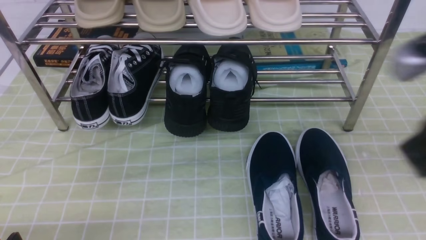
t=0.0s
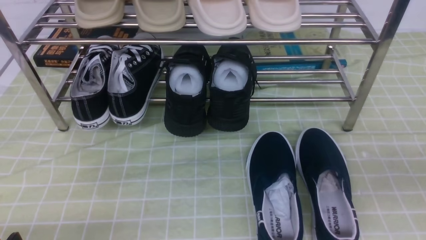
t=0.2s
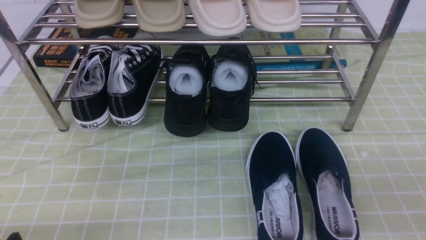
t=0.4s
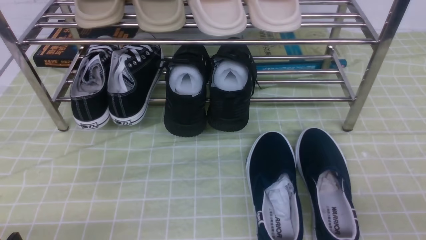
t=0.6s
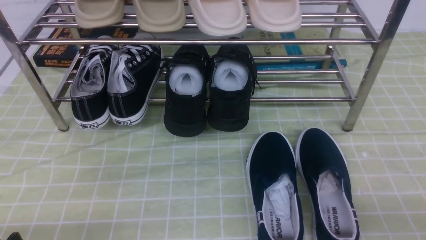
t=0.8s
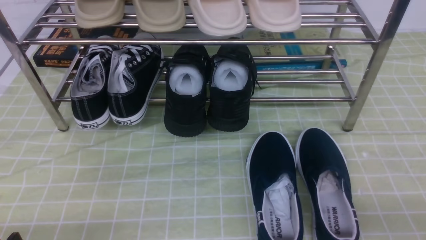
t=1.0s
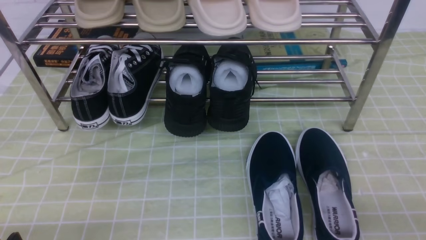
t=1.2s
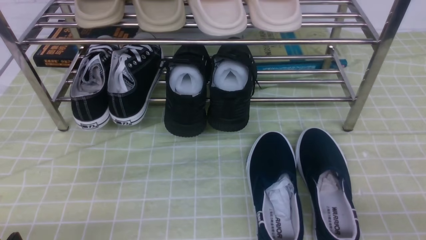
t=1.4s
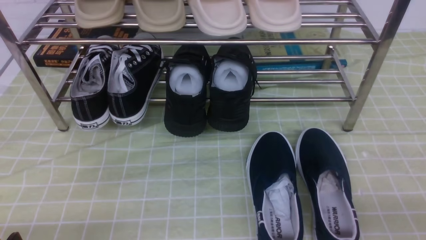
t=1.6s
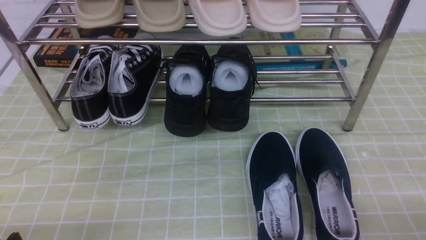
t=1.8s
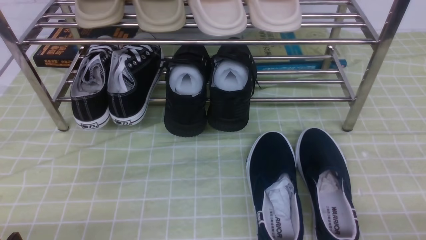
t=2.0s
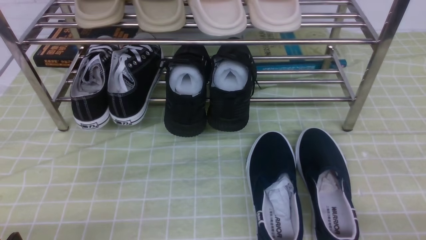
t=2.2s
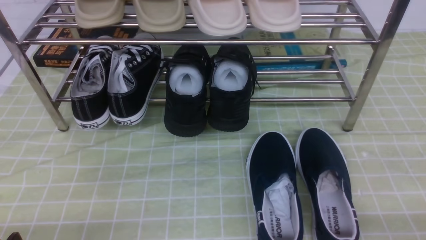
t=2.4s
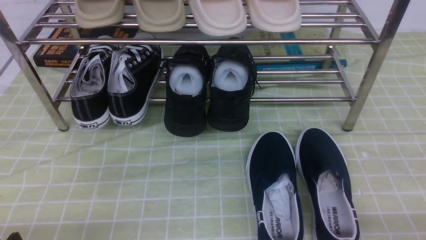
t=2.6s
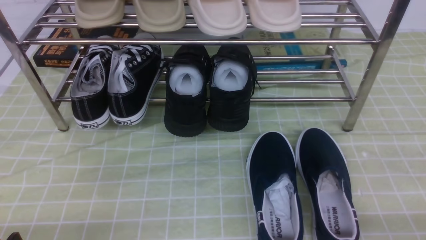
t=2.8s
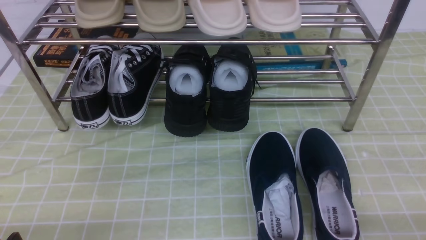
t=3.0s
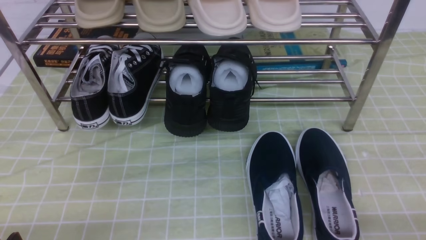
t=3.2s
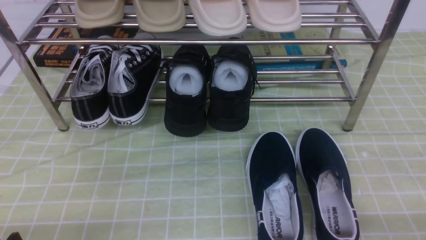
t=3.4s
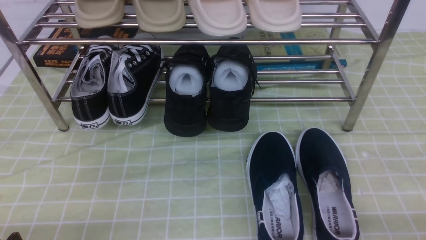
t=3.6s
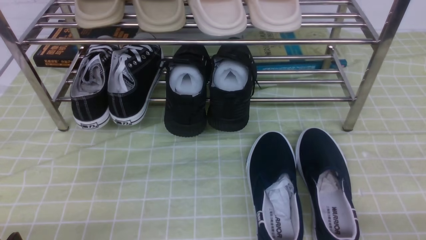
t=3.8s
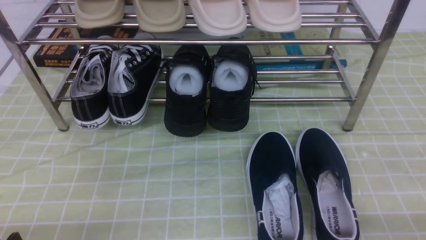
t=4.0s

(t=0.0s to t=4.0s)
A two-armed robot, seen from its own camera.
t=0.0s - t=1.4s: The right gripper moves downward, backward and to the right, about 20 cm.
t=2.6s - t=4.0s: Both grippers stay put.

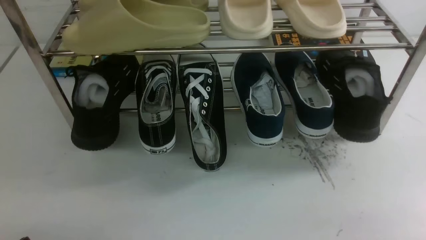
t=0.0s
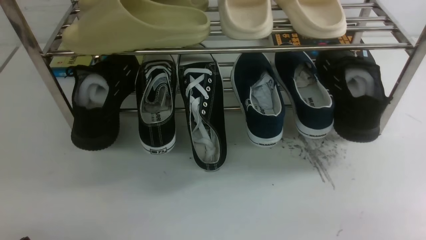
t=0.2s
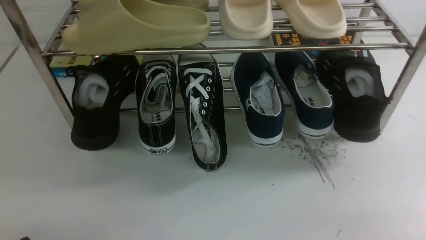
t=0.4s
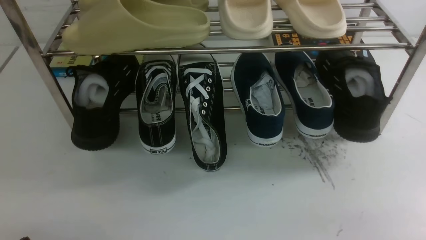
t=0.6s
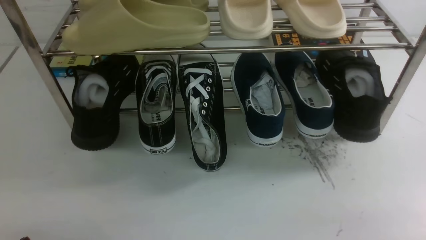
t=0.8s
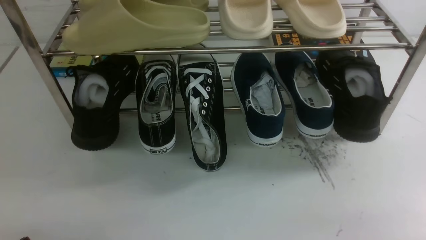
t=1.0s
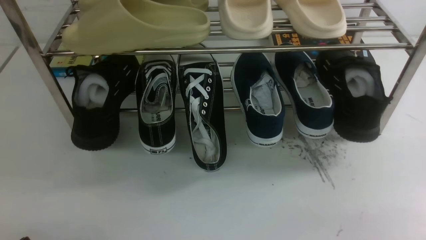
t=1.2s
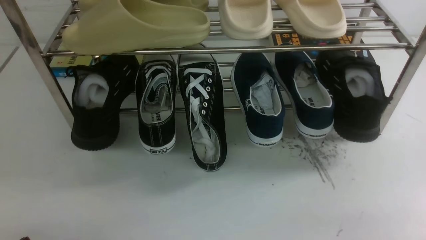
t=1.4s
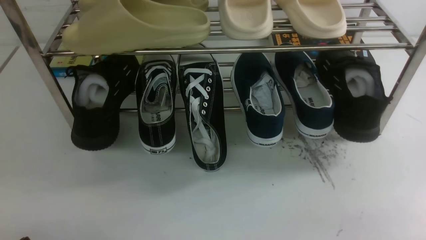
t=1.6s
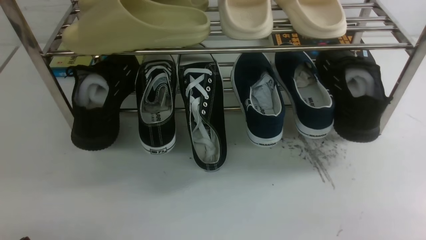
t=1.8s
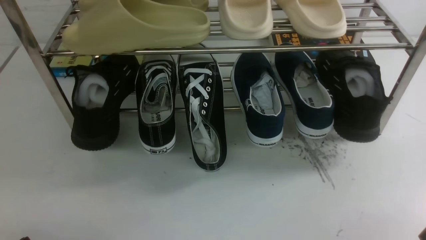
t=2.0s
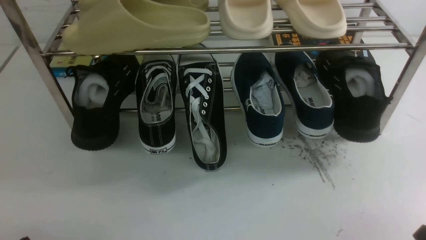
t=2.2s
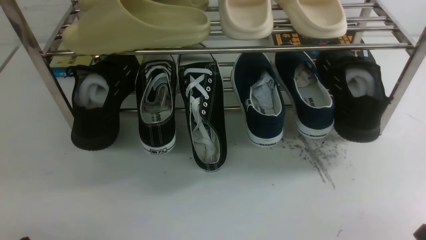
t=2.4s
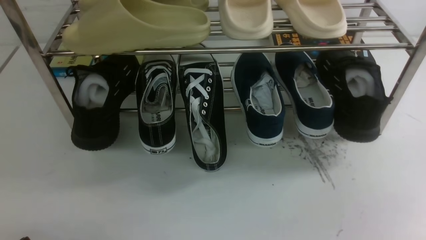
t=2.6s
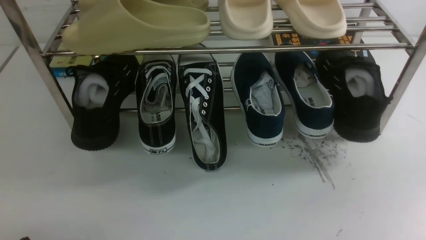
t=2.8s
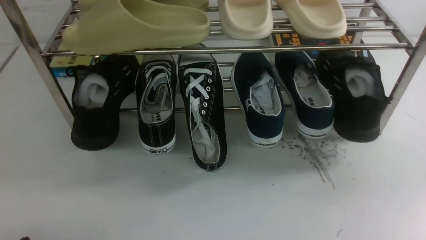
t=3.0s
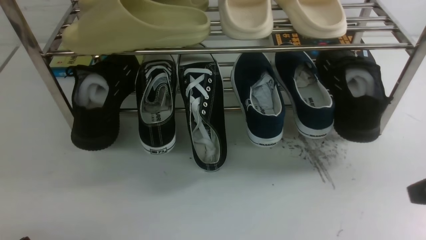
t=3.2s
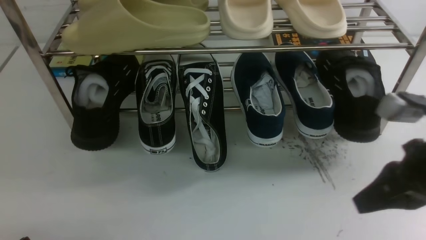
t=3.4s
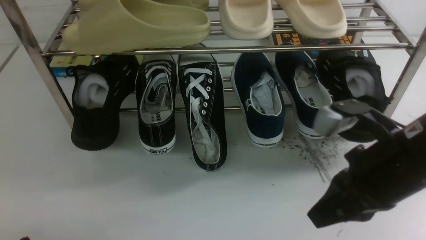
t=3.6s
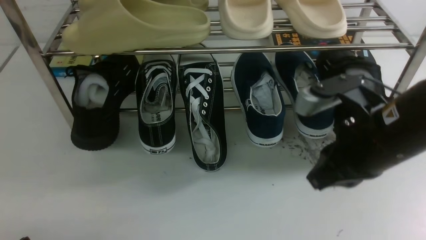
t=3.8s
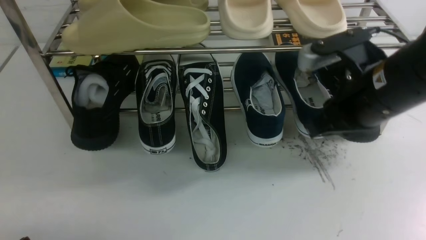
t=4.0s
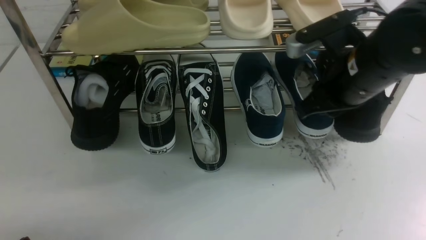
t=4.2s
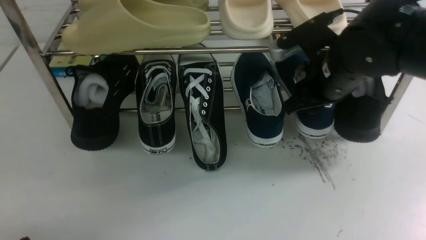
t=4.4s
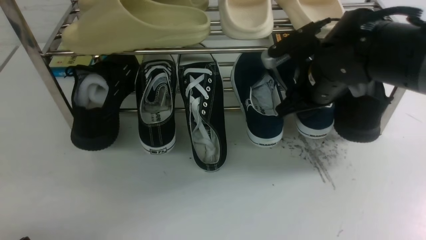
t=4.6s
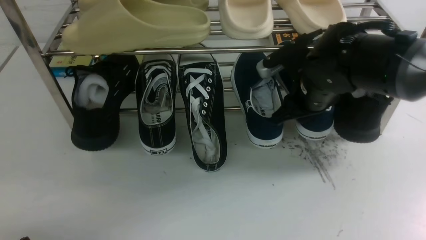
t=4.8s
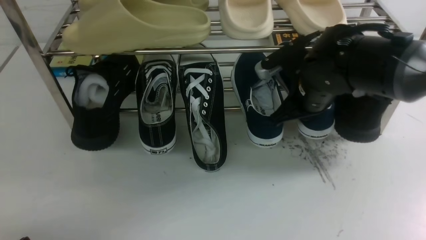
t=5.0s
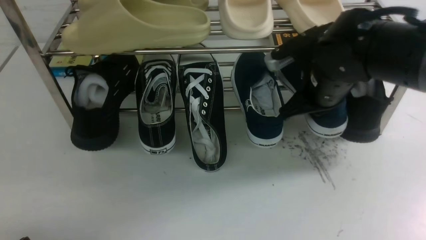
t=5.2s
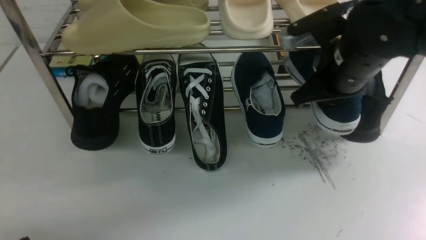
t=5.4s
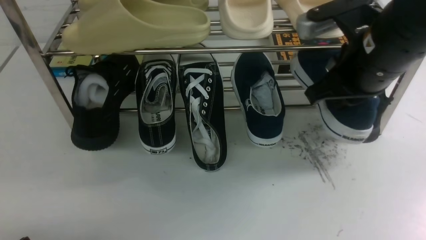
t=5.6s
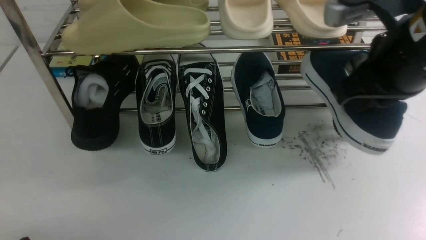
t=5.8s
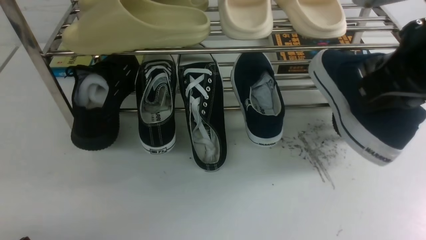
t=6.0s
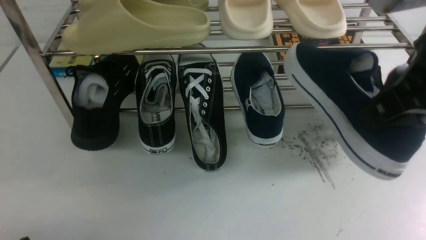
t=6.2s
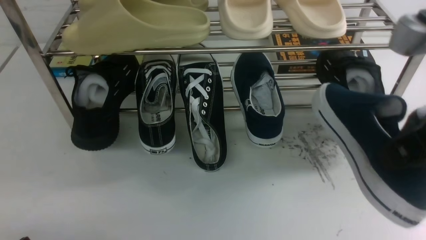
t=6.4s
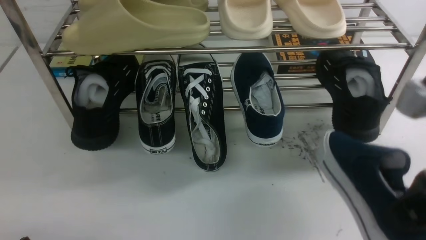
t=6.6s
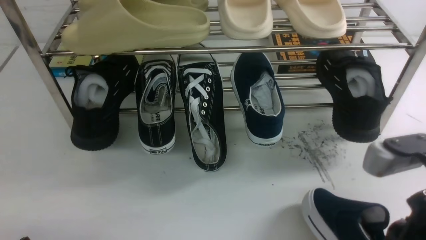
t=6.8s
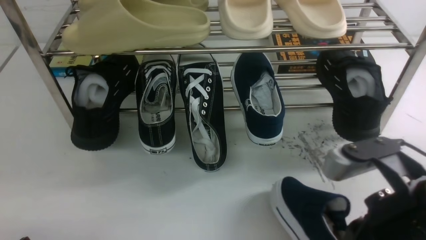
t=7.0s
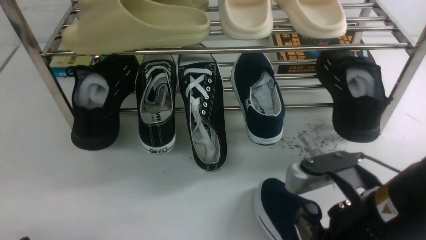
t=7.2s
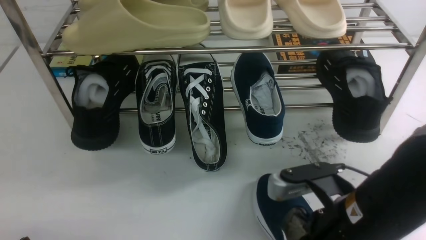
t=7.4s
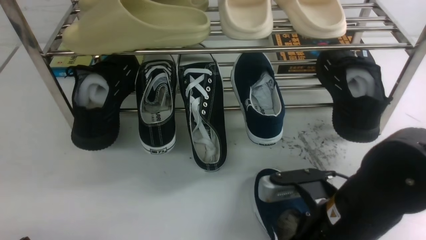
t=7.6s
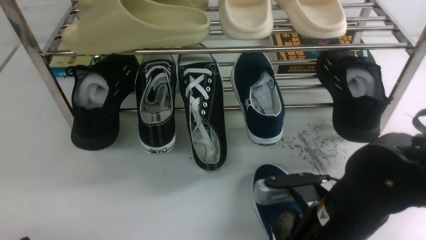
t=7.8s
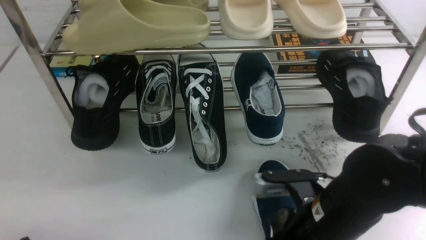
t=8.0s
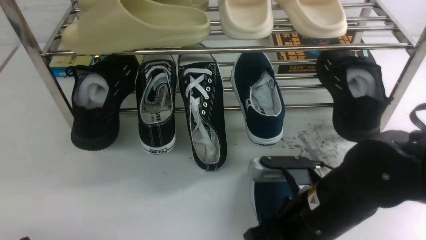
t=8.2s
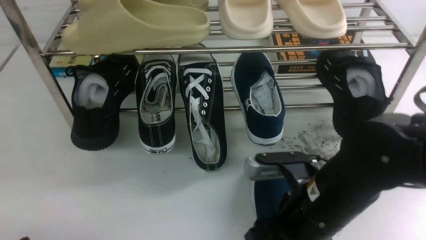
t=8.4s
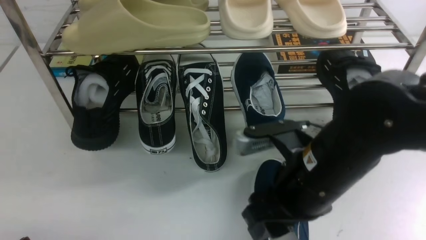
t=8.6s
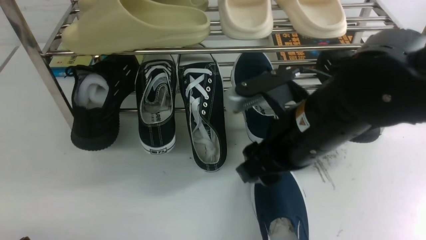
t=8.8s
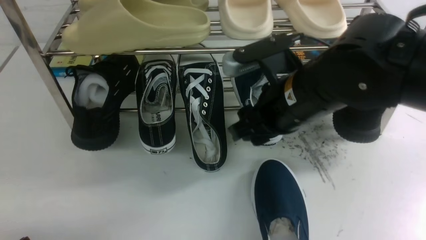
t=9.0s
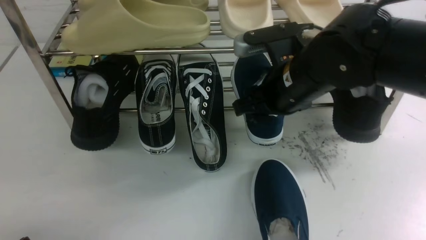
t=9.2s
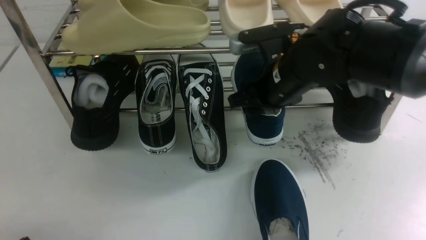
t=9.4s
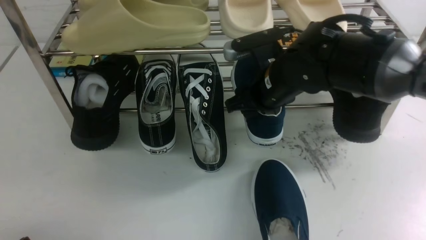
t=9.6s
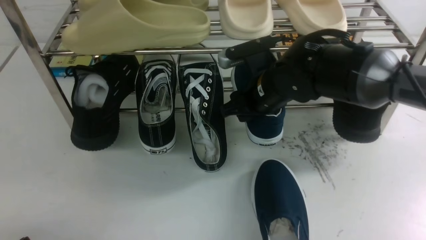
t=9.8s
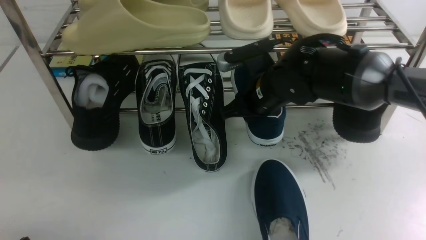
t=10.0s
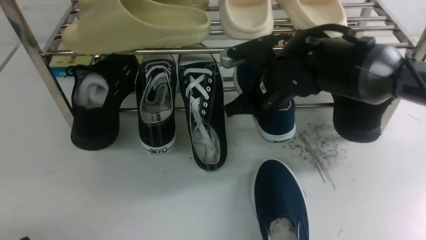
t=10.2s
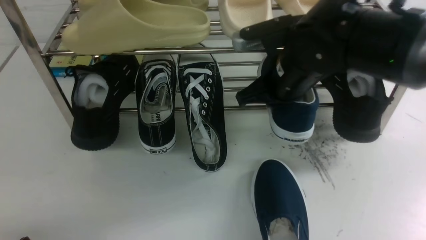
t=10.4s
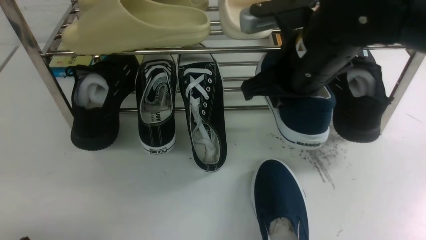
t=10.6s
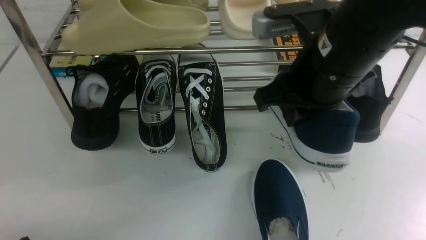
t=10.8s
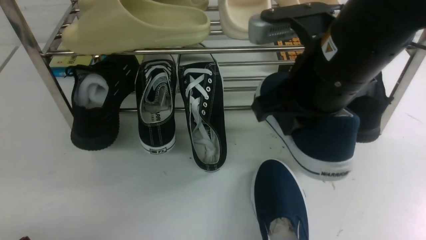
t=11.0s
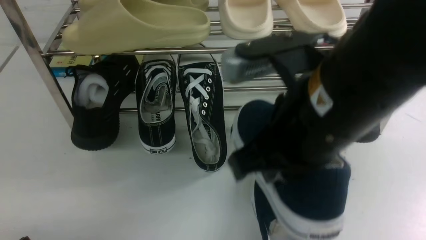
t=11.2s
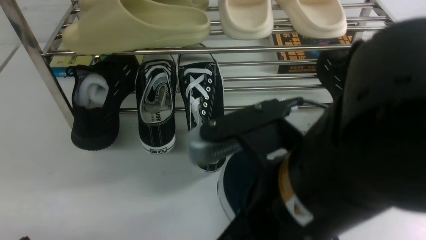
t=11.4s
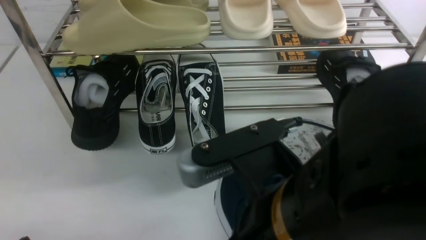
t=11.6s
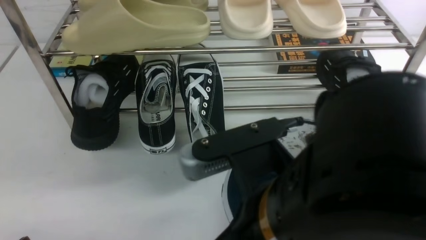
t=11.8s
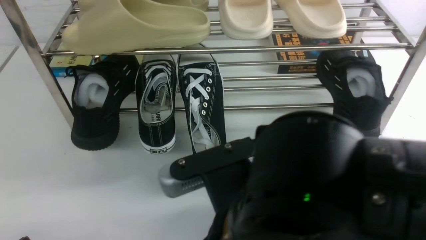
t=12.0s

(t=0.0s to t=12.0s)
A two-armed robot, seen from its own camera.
Step, t=0.0s - t=5.6s: use the right arm to clamp a shoe on the right side of the shoe rack.
Step, t=5.8s - t=8.6s: use the right arm to take out the clamped shoe from the shoe rack and put it down.
Step, t=8.8s - t=10.6s: use the right arm to clamp a shoe in the middle of the shoe rack.
t=0.0s - t=1.6s: Both grippers stay put.
t=3.0s - t=4.4s: The right gripper shifts roughly 25 cm forward and to the left, and opens its fingers.
t=4.4s - t=6.0s: The right gripper goes about 15 cm backward and upward, and closes its fingers.
t=6.0s - t=7.6s: The right gripper moves downward, approximately 20 cm.
t=7.6s - t=9.0s: The right gripper moves forward and upward, some 15 cm, and opens.
t=9.0s - t=10.4s: The right gripper is displaced forward by roughly 5 cm, and closes up.
t=10.4s - t=12.0s: The right gripper travels backward by about 20 cm.

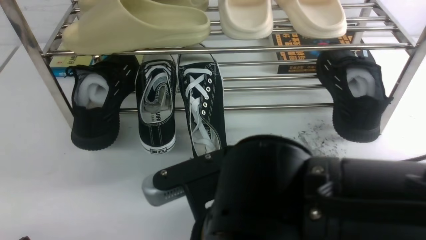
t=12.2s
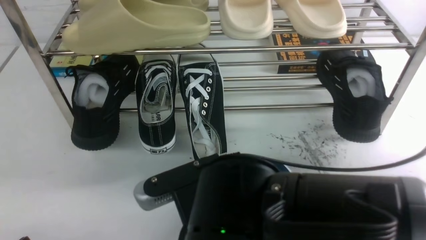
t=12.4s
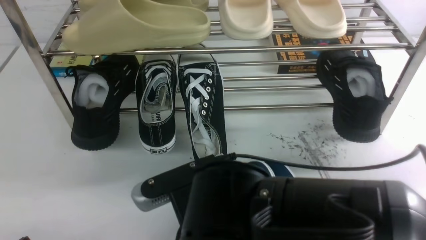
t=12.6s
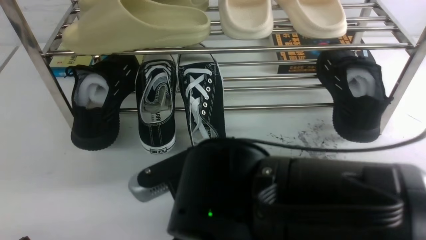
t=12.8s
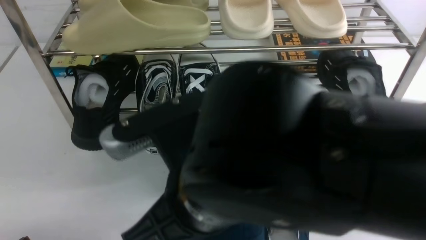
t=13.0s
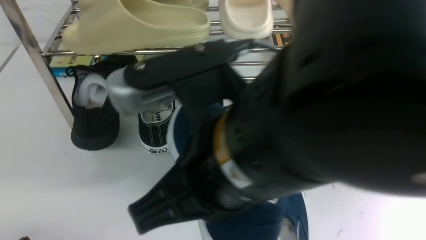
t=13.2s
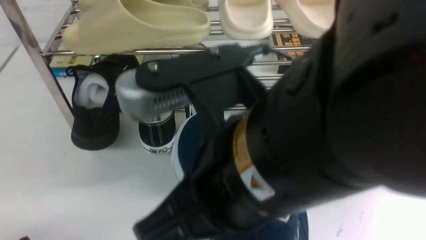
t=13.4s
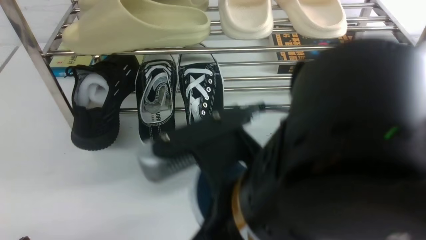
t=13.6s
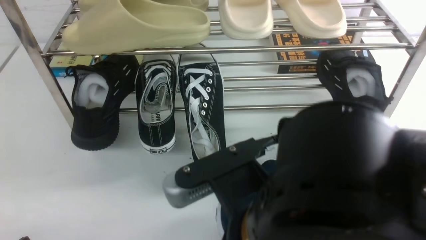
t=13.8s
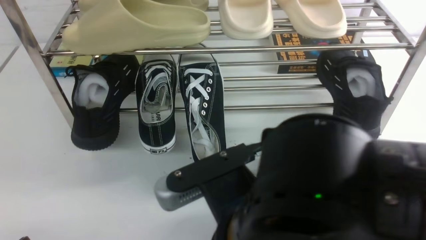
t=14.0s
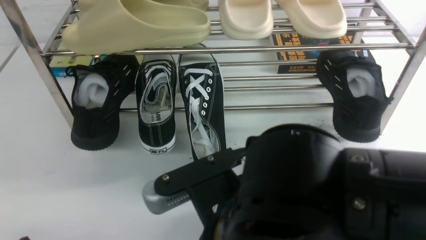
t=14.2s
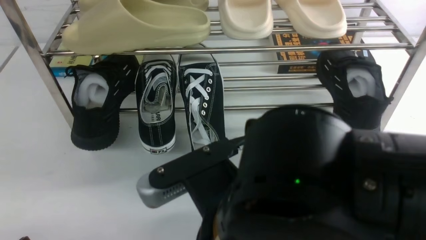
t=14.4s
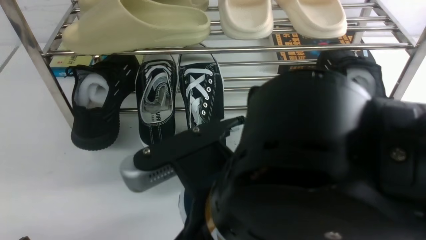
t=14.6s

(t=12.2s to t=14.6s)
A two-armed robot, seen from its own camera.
t=12.2s - t=13.4s: The right gripper shifts some 10 cm upward.
